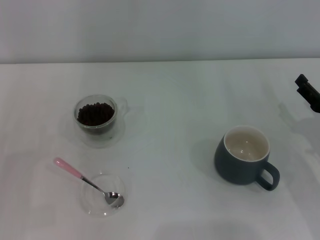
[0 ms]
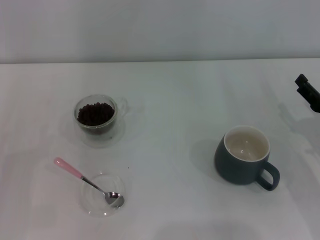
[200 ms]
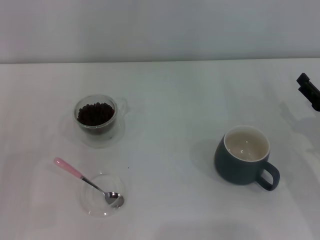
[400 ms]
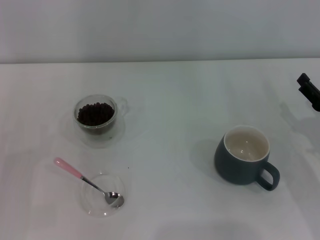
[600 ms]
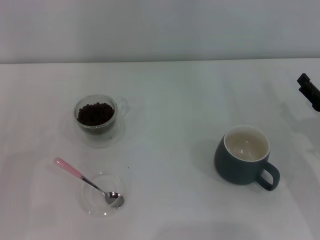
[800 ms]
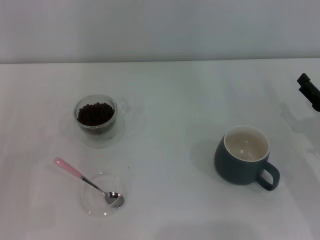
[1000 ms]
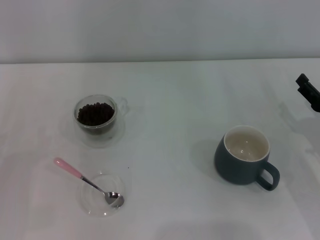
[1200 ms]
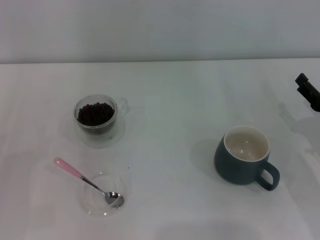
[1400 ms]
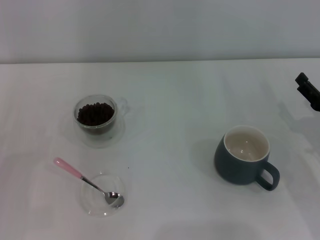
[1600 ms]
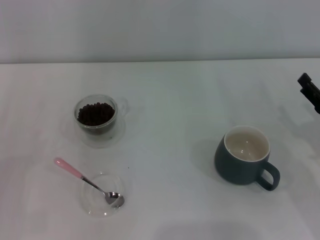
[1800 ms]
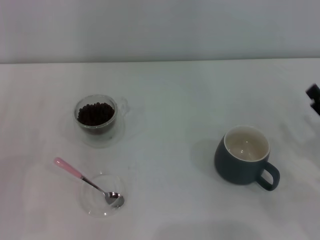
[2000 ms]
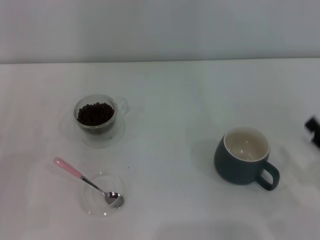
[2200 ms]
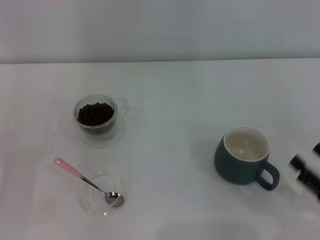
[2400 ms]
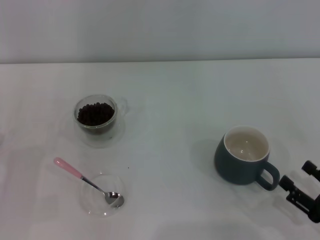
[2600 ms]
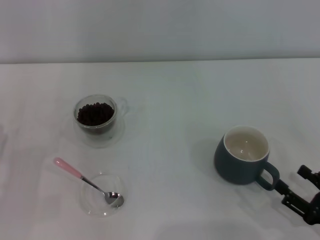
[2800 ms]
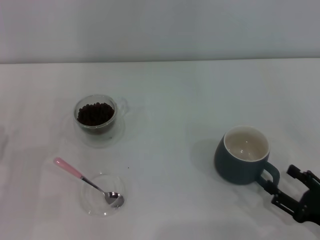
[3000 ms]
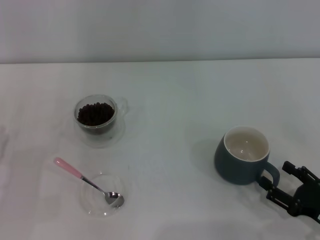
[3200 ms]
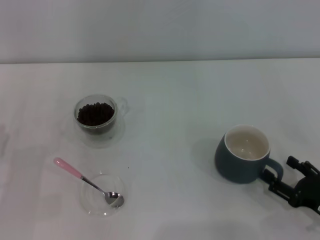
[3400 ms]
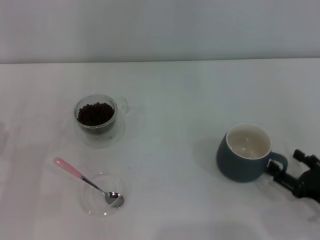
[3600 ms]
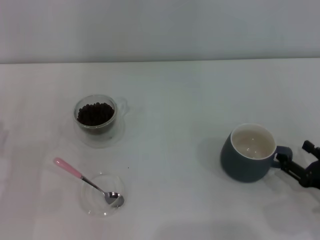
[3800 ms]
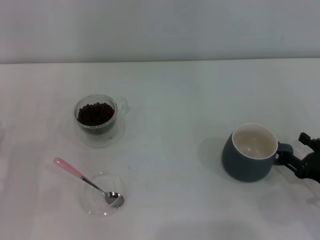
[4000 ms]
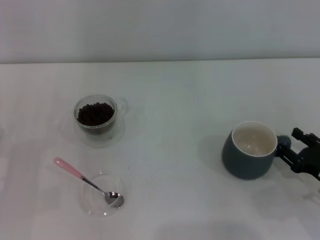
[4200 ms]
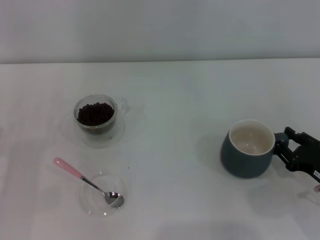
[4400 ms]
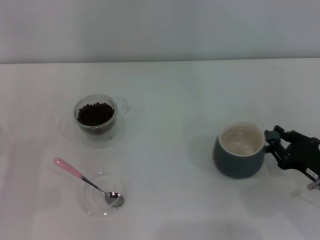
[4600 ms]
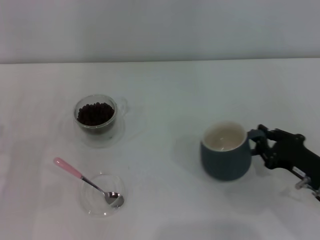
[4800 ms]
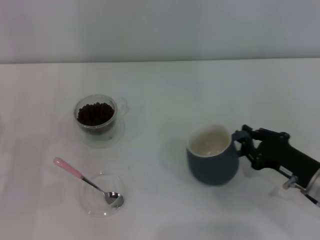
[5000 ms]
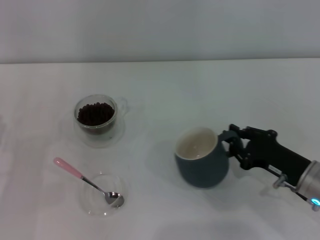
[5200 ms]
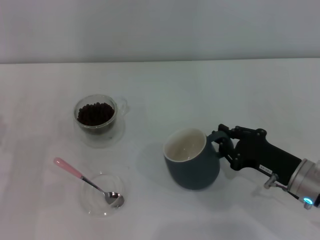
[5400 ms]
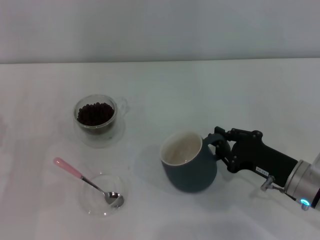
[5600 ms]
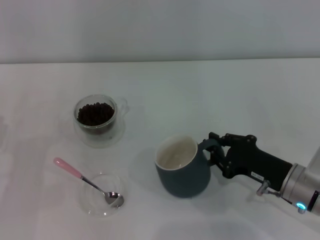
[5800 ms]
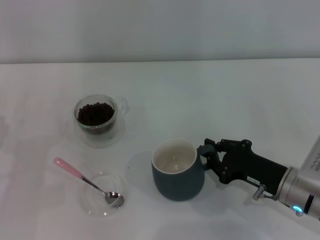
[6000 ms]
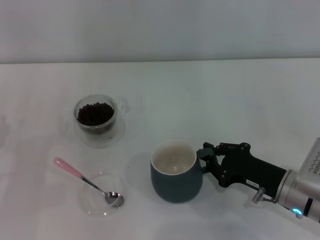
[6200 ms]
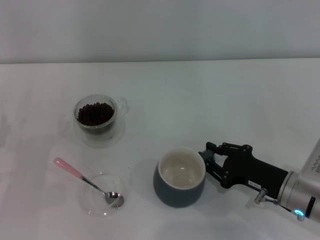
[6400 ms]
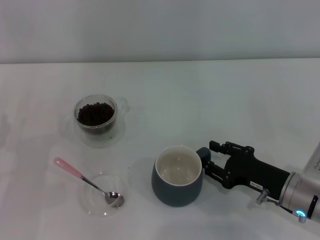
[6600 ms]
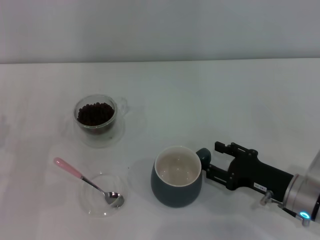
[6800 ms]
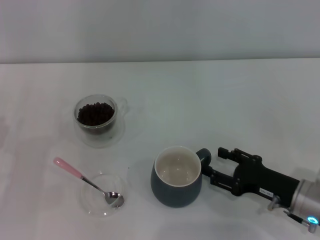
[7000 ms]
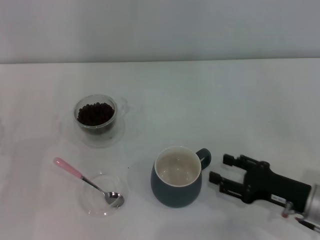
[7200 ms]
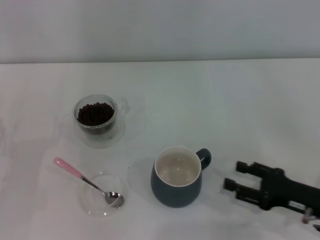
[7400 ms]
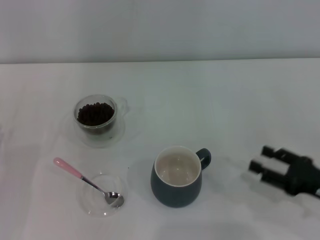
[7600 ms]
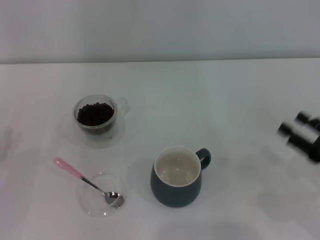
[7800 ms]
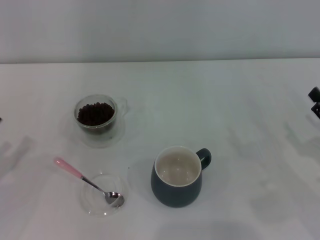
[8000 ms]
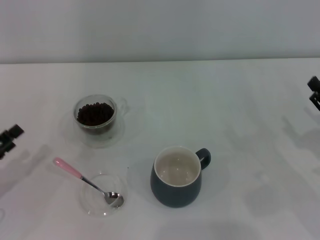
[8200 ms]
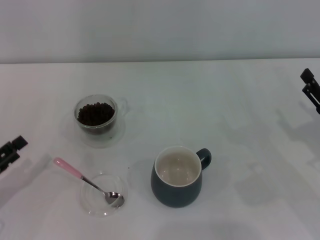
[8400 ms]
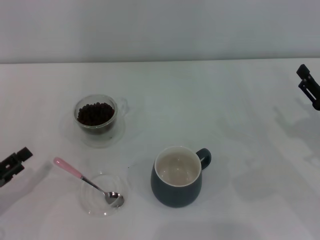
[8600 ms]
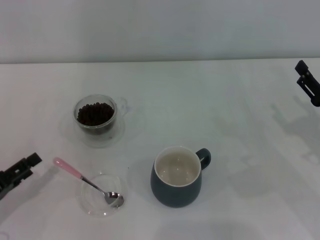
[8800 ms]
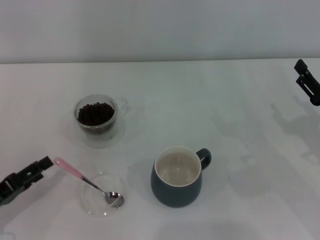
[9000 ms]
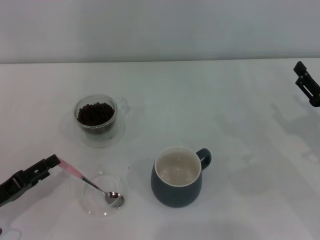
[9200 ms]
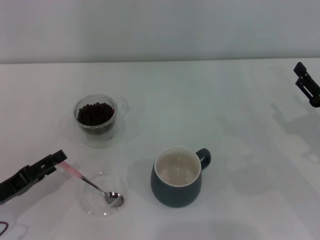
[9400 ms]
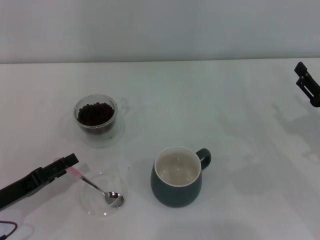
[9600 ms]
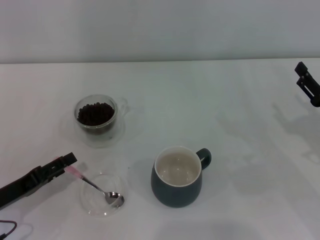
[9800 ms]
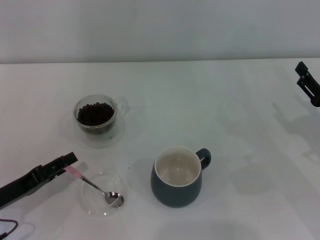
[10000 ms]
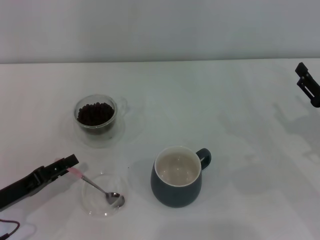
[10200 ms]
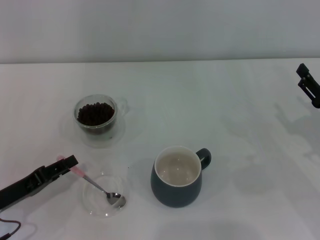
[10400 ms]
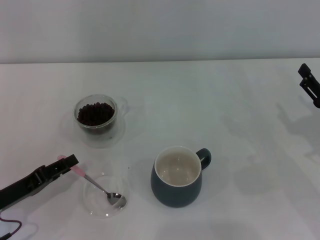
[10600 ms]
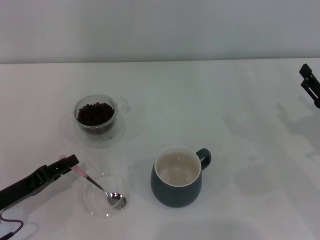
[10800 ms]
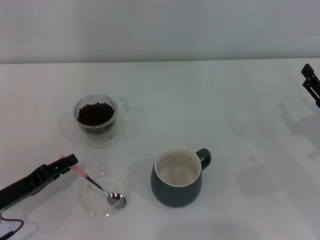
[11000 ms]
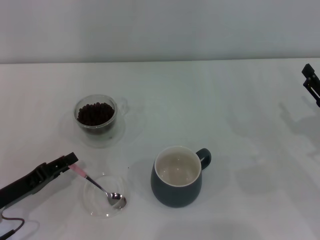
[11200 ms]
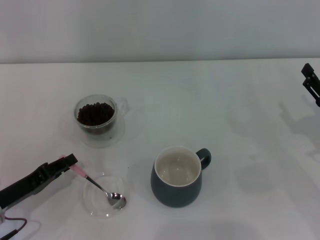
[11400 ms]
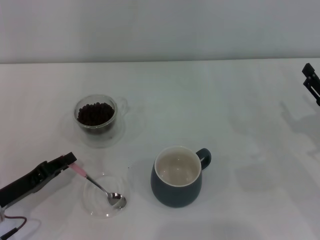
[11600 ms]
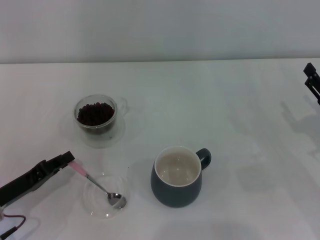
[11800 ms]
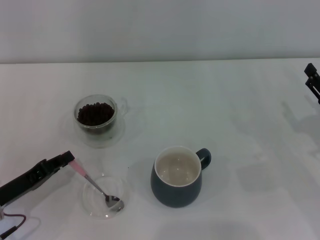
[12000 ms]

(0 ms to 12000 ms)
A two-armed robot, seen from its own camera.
Task of the whole recording: Use a pink spoon to take out the coffee beans from the glass and pour them into the gray cup.
Step, 0 ms - 7000 ms: Move the cup to the center of view with the left gripper.
0 ms - 1600 ms: Neither gripper changes place.
1600 ms - 3000 ms: The right gripper is displaced backward by some 15 cm.
3000 ms - 4400 ms: The right gripper is displaced forward by about 10 cm.
4400 ms - 6000 ms: The right gripper heads to the left, covering approximately 10 cm, and closes.
6000 ms - 7600 ms: The right gripper travels to the right by roughly 10 cm, and opens up.
7600 ms - 9000 ms: The right gripper heads forward, covering roughly 5 cm.
9000 ms - 10400 ms: The grippers make only small movements.
10400 ms - 12000 ms: The left gripper closes its fingers.

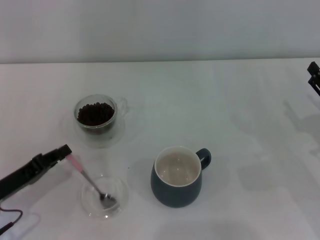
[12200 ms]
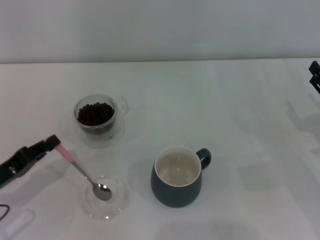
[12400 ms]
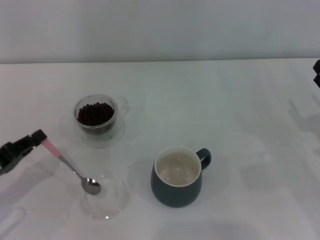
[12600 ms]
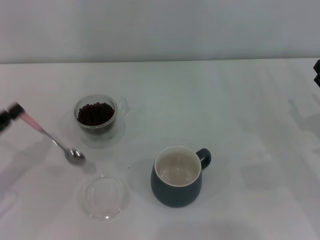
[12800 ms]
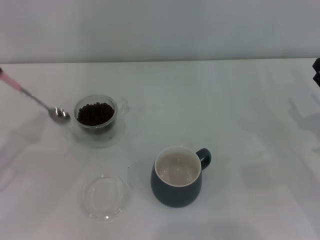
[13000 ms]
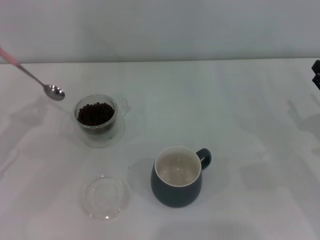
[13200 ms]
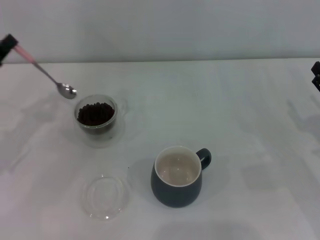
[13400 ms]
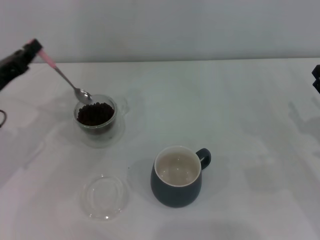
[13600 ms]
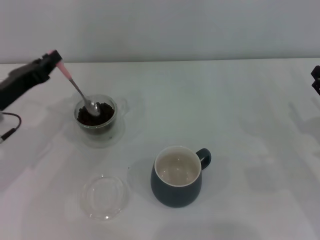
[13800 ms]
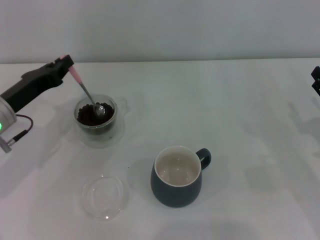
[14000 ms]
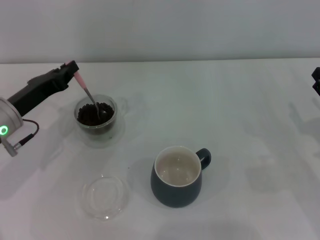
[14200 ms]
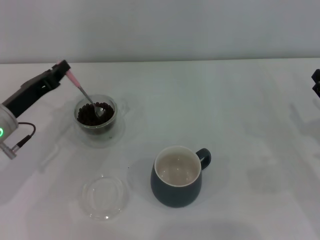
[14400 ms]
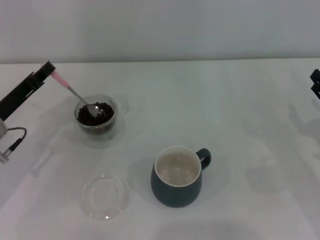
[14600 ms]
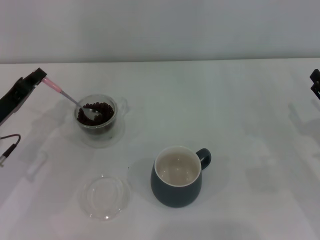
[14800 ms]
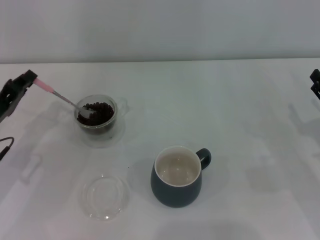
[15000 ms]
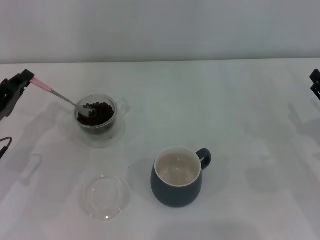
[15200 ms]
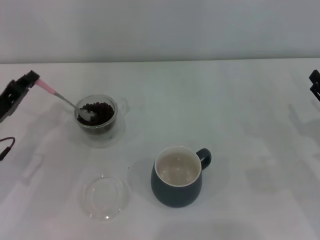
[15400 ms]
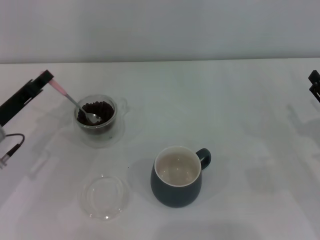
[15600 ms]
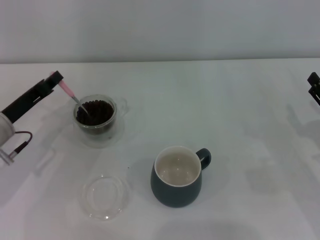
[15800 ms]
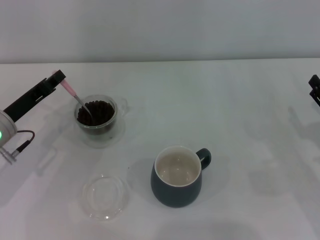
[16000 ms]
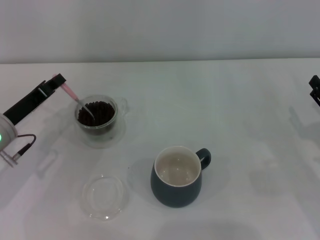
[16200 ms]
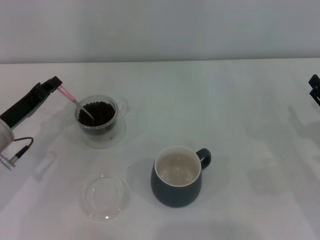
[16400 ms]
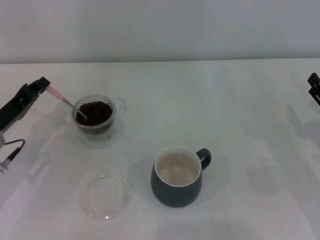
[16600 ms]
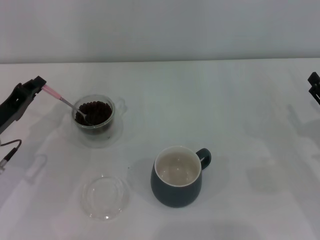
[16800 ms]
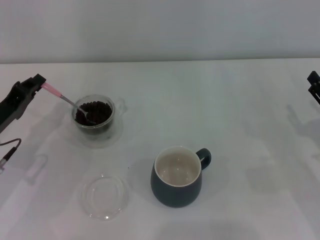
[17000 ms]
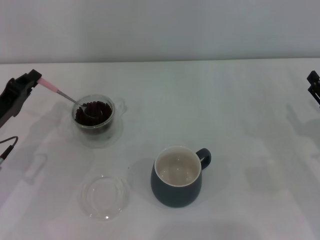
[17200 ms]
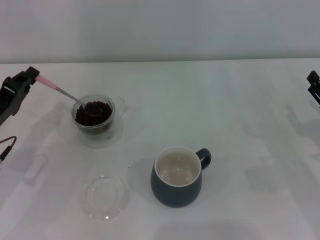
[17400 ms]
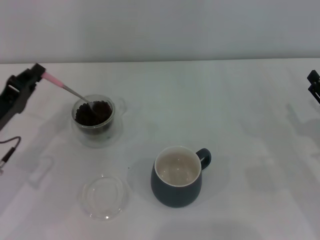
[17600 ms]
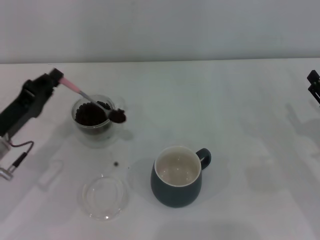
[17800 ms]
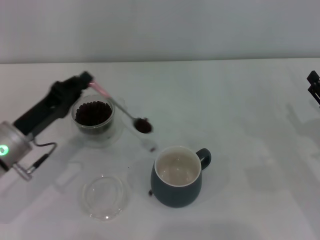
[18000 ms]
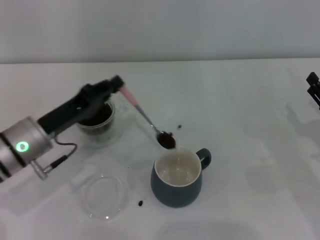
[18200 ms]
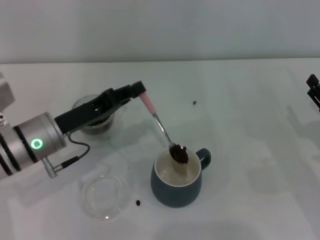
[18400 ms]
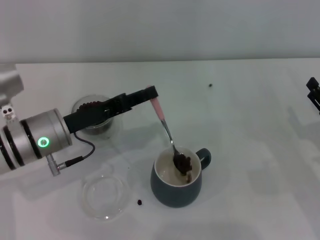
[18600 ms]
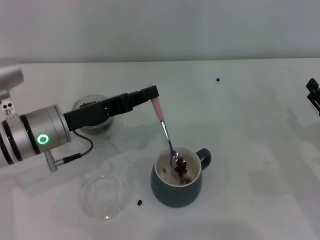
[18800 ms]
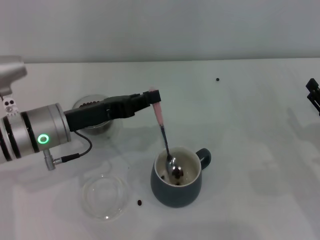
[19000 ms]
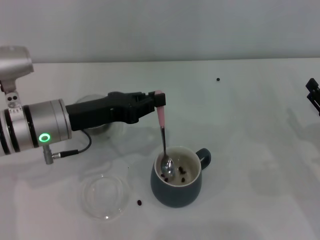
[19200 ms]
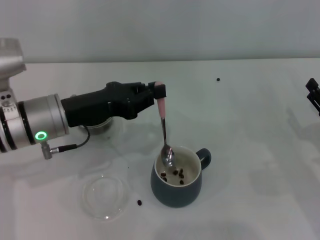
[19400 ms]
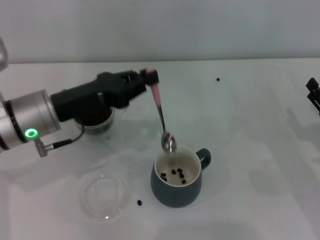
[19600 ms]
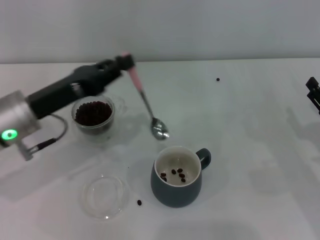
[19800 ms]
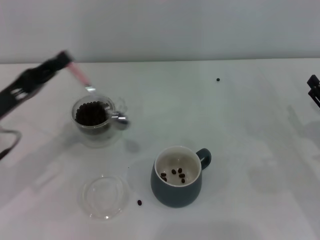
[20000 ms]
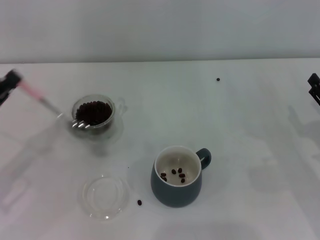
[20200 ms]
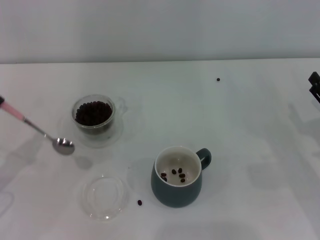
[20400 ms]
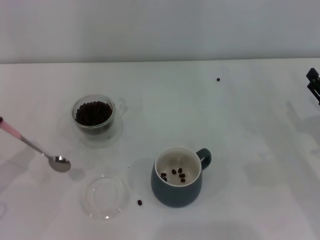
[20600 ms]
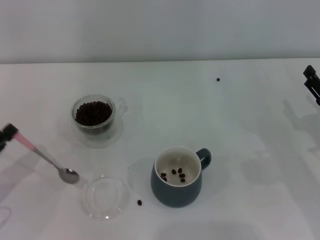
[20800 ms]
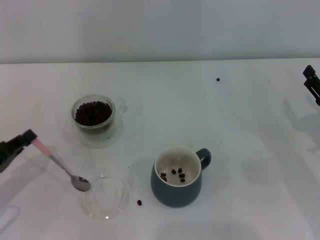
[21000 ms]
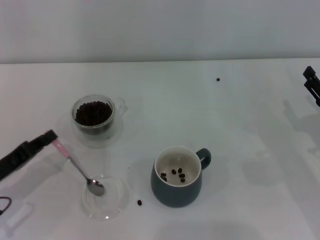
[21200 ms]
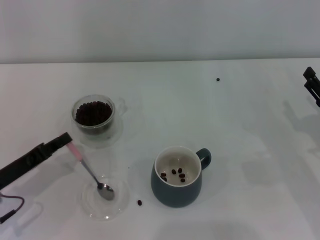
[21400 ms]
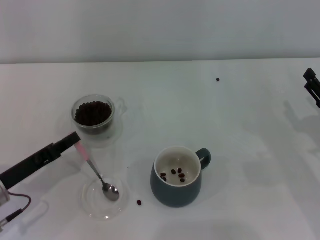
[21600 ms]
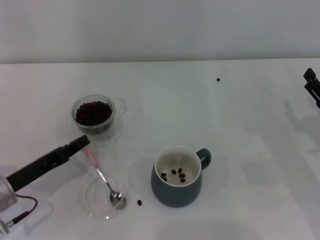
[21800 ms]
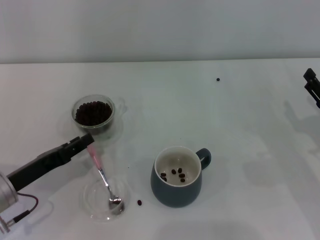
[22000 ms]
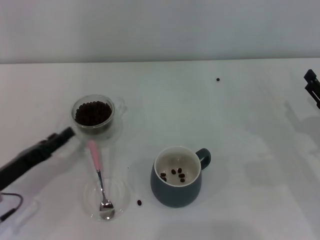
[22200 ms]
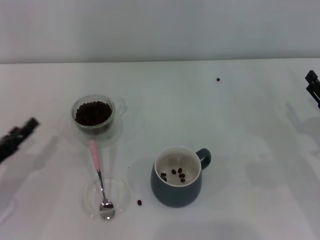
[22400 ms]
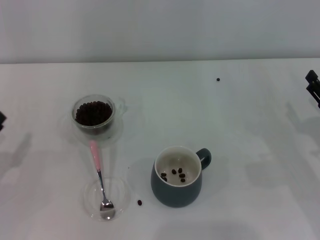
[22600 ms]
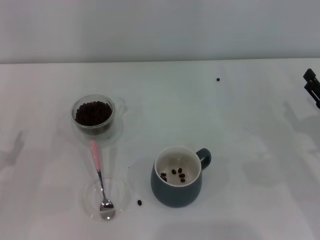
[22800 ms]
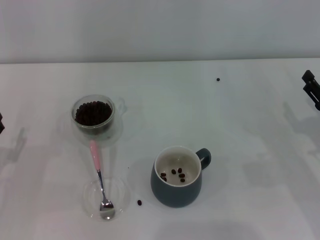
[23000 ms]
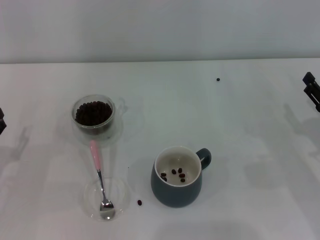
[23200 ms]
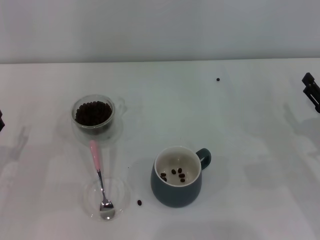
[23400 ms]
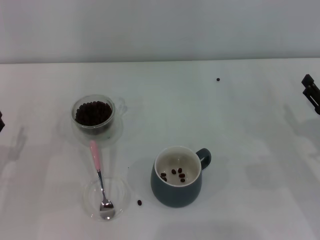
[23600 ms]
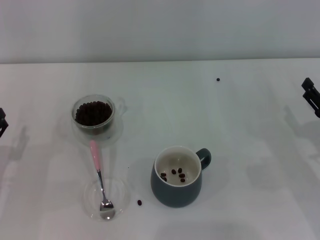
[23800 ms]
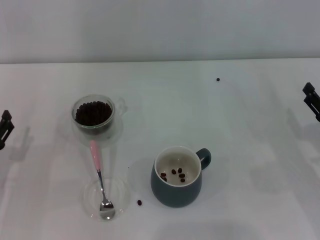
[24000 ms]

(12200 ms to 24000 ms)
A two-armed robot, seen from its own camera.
Task of the whole recording: Use a pink spoon to take out the coffee beans from the glass and pour them into the gray cup.
12200 ms - 13600 ms: The left gripper moves forward and upward, approximately 10 cm.
15200 ms - 16600 ms: There are only small adjustments of the grippers.
16600 ms - 18200 ms: The left gripper heads to the right, covering approximately 5 cm.
18200 ms - 19600 ms: The left gripper is displaced upward by roughly 5 cm.
19600 ms - 21000 ms: The left gripper heads to the left, downward and backward, covering approximately 20 cm.
21000 ms - 22600 ms: The left gripper opens its fingers.
